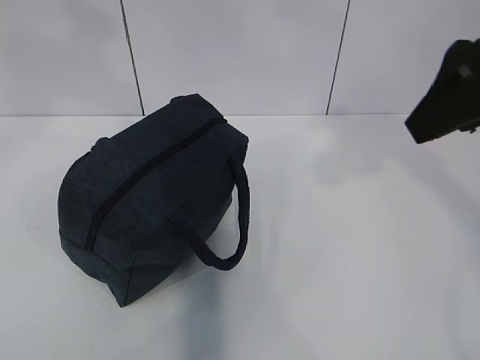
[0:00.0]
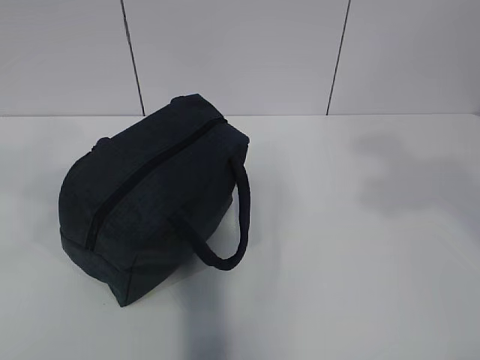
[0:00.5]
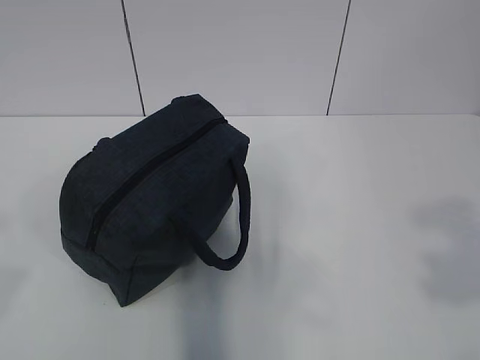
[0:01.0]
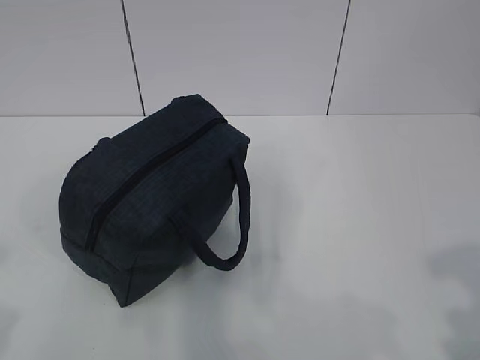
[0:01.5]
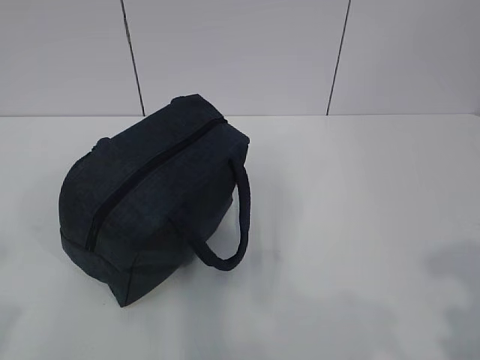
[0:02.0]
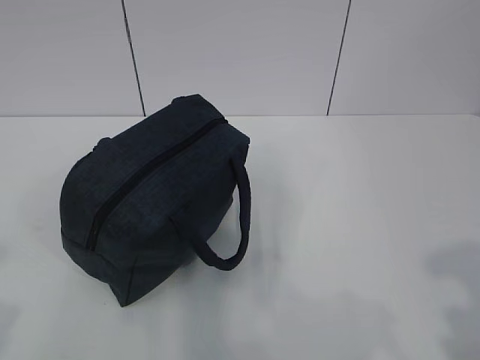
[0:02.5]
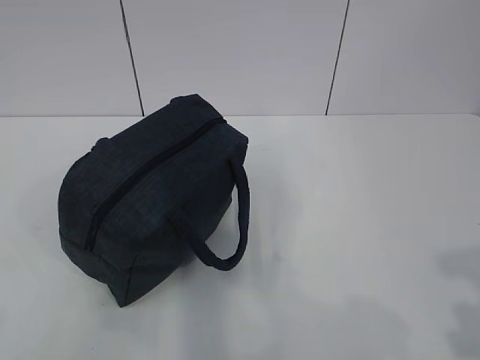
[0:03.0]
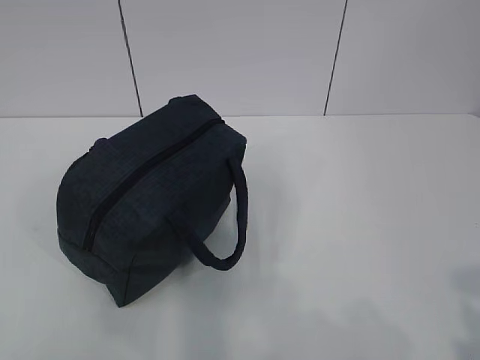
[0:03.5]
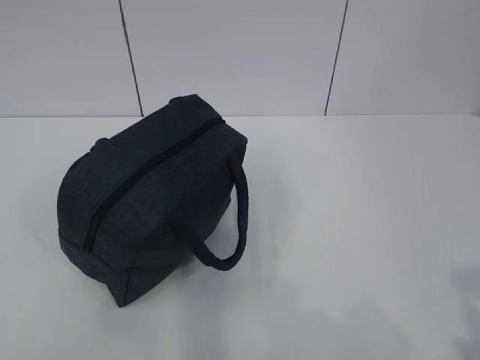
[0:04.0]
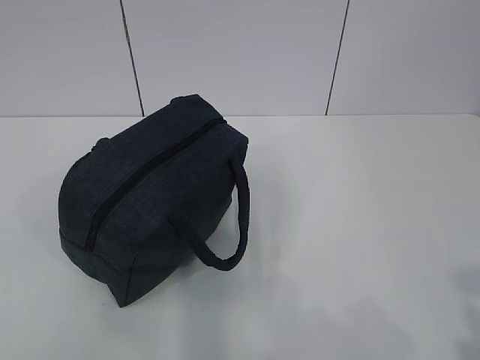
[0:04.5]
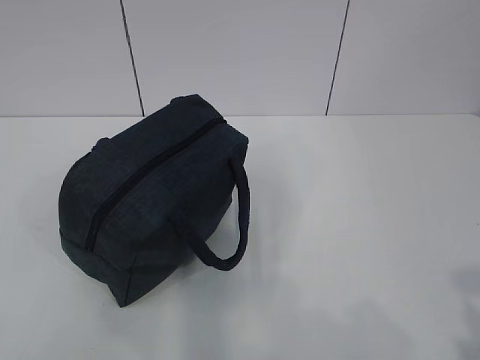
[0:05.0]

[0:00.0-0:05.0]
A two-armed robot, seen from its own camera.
0:00.0 to 0:02.5: Both grippers travel together backward and downward, about 25 cm.

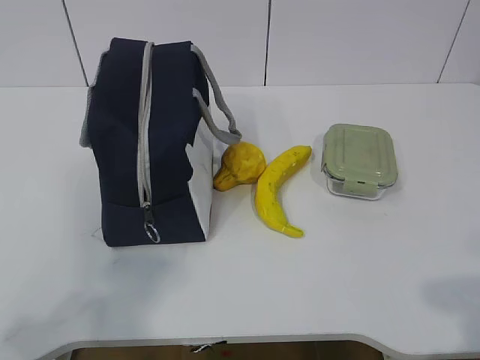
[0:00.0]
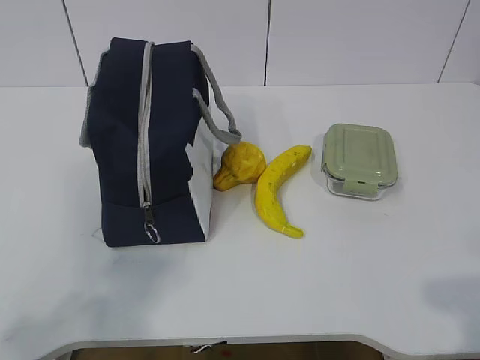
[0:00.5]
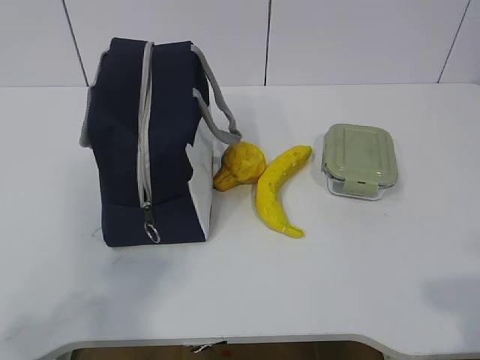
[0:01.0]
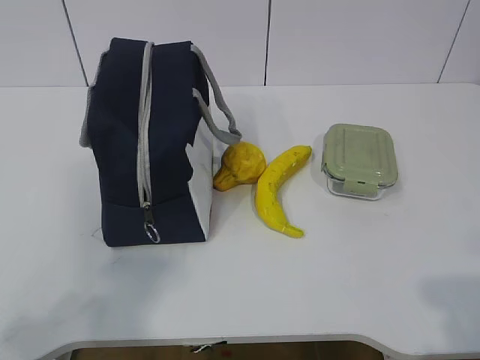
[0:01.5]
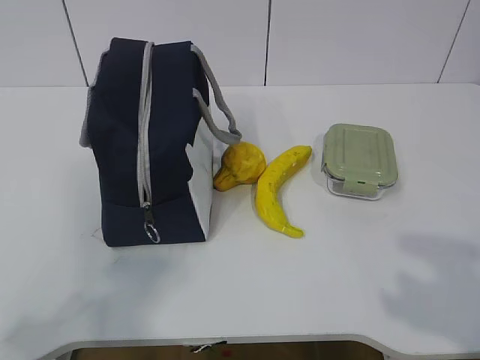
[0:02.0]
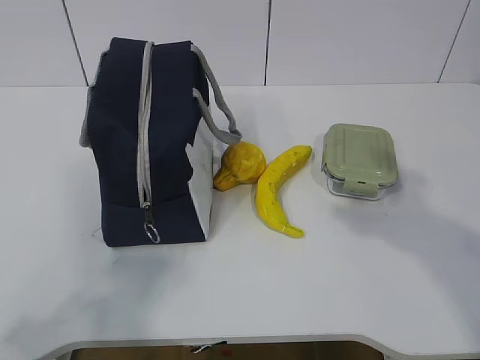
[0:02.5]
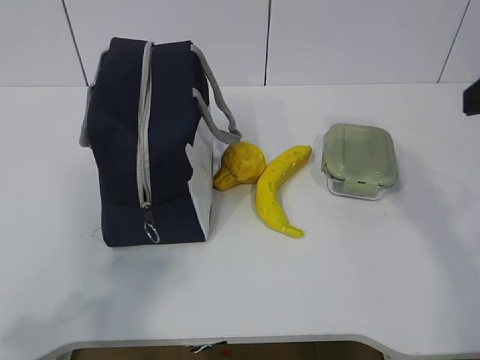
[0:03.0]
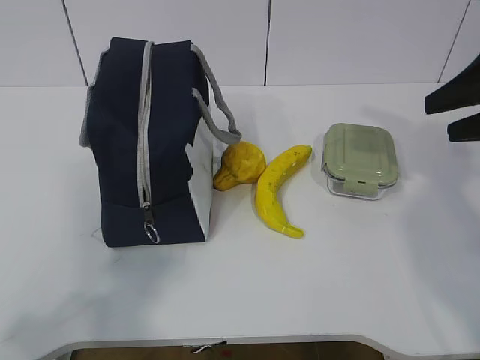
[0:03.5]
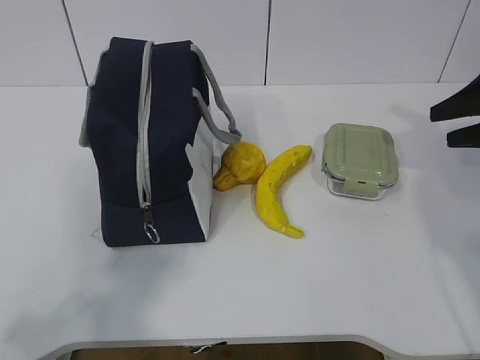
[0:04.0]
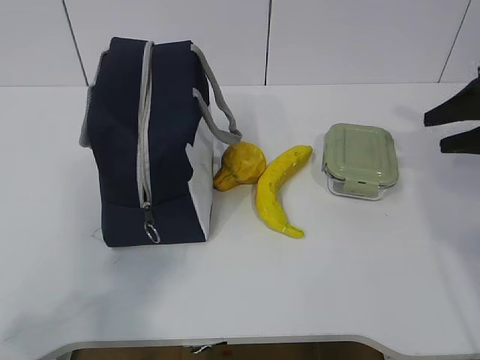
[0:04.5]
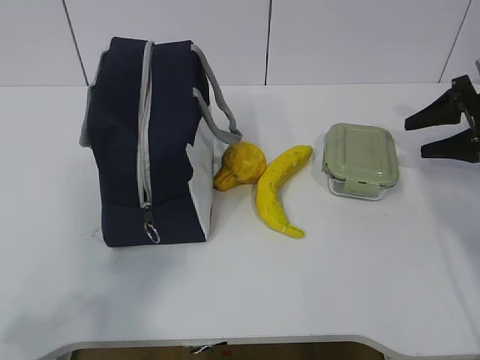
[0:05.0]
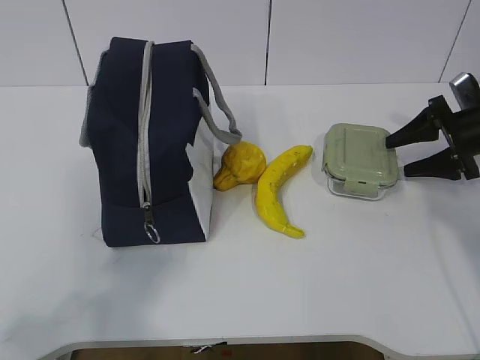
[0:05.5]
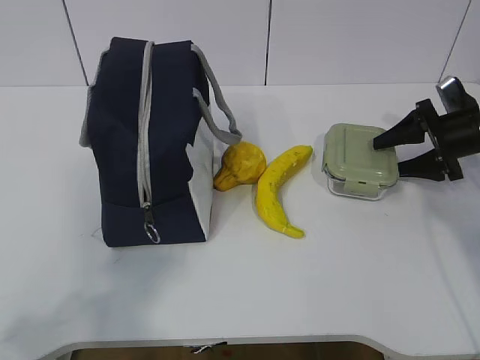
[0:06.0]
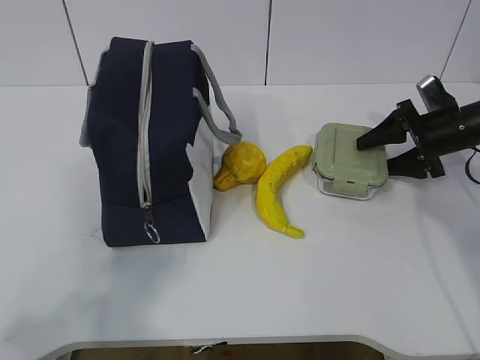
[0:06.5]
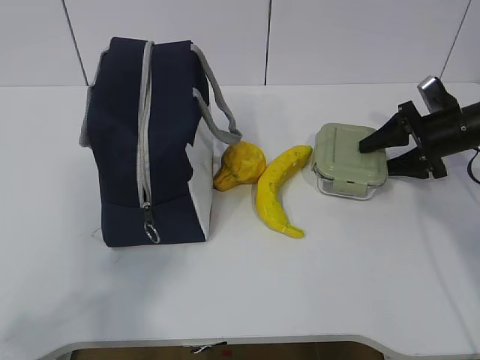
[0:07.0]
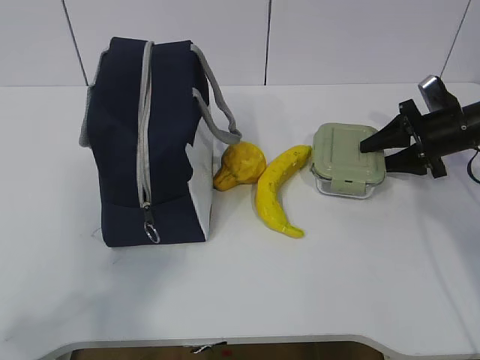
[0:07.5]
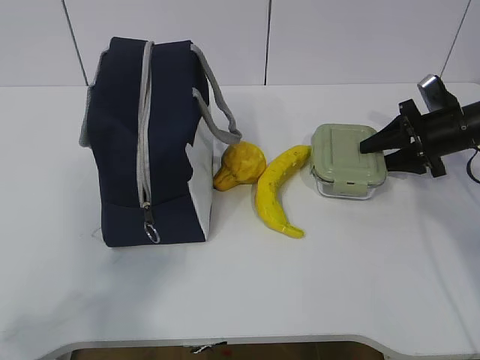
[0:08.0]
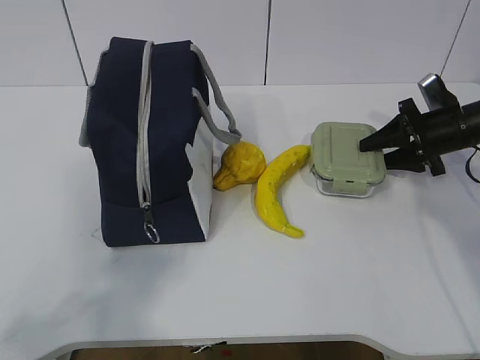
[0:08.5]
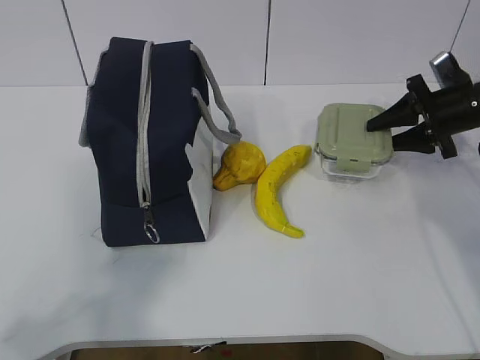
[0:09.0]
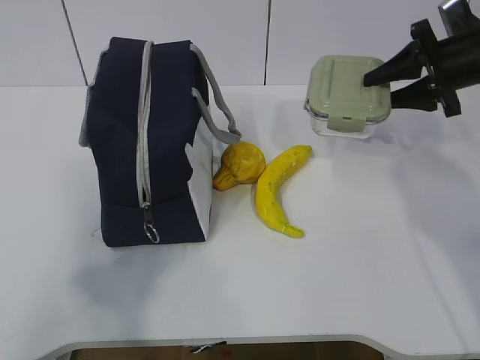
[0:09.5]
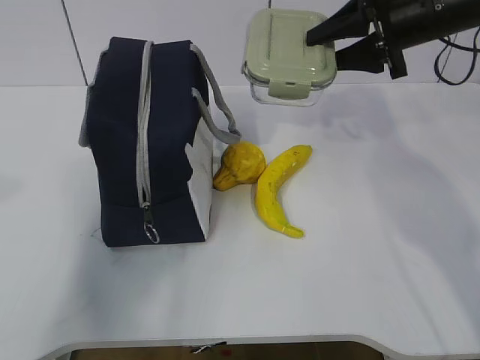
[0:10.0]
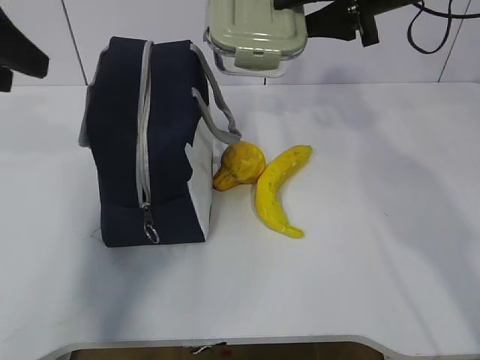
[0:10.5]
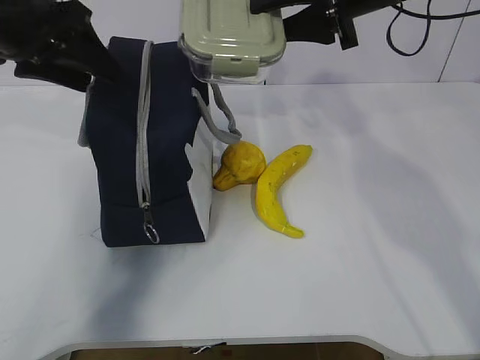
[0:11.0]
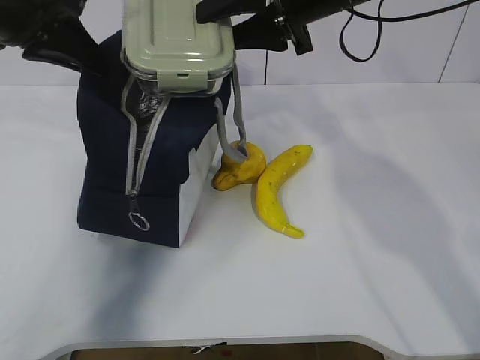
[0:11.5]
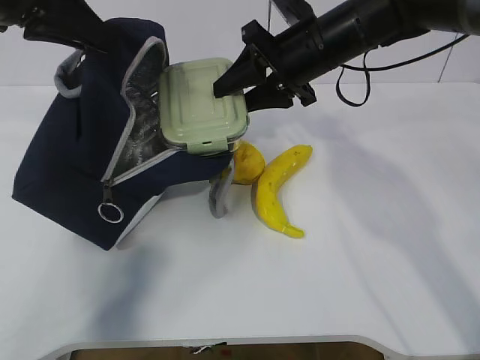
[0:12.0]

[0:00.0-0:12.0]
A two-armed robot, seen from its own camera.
Step, 0:00.0 to 0:07.5: Grasp the box with the right gripper.
0:02.0 to 0:04.0: The right gripper shifts some 35 cm forward.
0:04.0 to 0:06.0: The right gripper heads downward and forward, covering about 10 cm.
0:06.0 to 0:08.0: The grippers move only a little.
0:08.0 to 0:10.0: The right gripper shifts some 20 cm upward and to the left, while the left gripper is displaced forward and upward by some 15 cm, and opens.
0:10.0 to 0:12.0: The left gripper moves forward, some 20 cm, and closes. The right gripper moves to the left, approximately 10 cm.

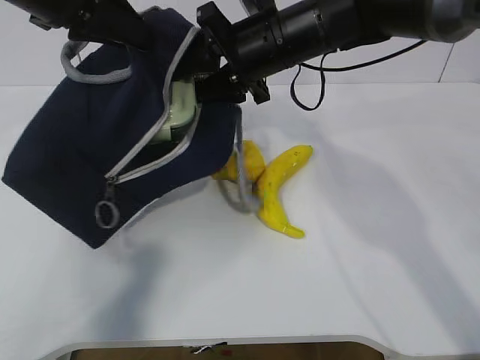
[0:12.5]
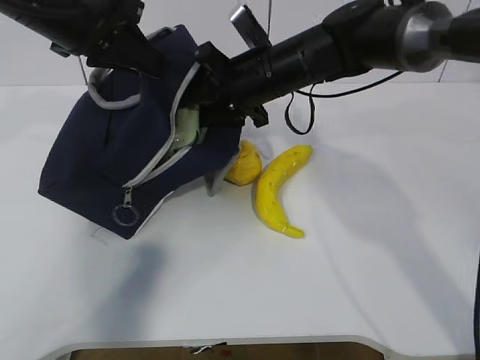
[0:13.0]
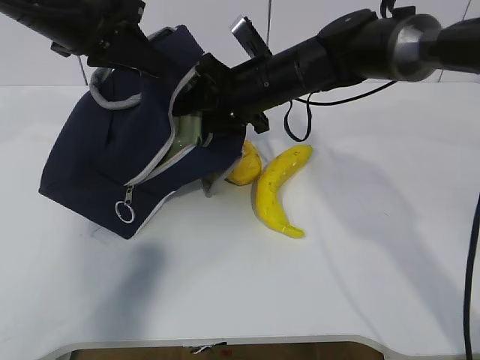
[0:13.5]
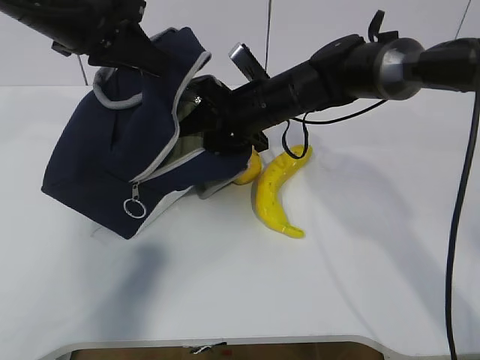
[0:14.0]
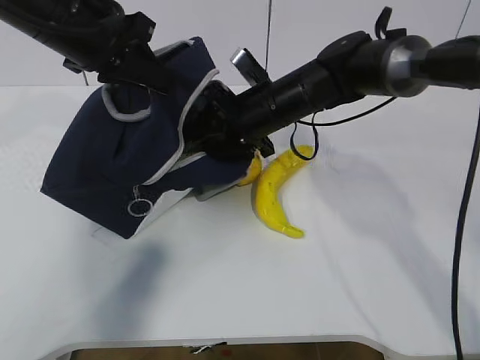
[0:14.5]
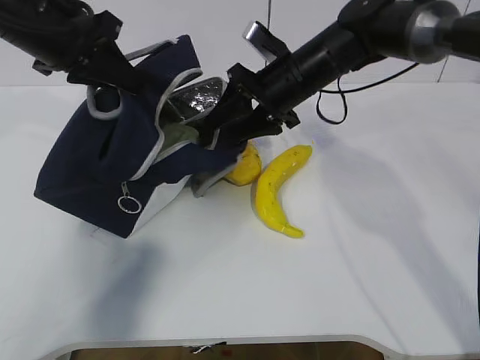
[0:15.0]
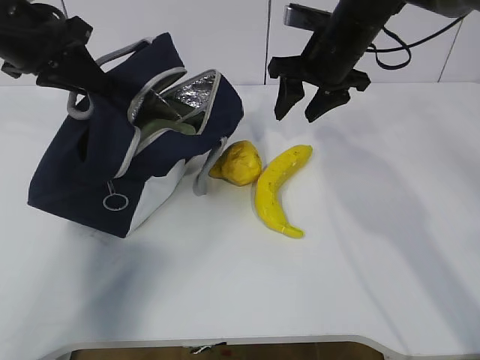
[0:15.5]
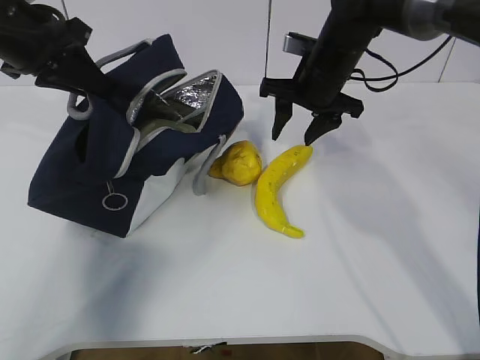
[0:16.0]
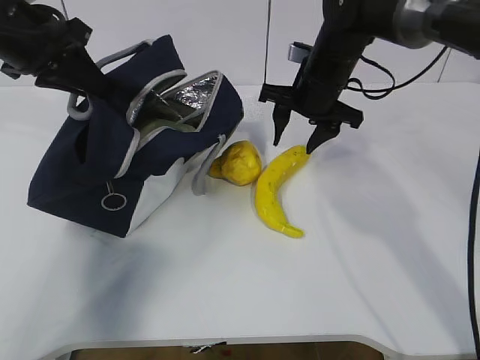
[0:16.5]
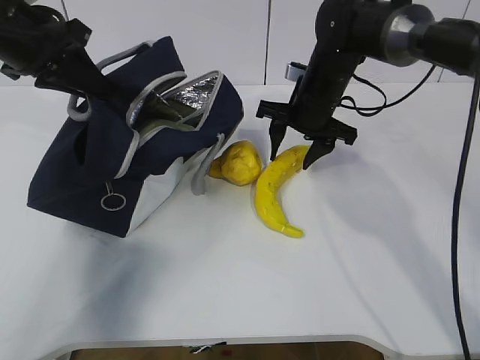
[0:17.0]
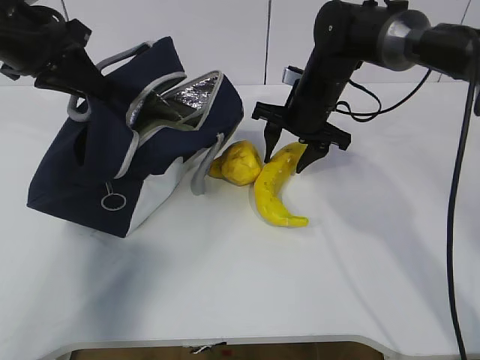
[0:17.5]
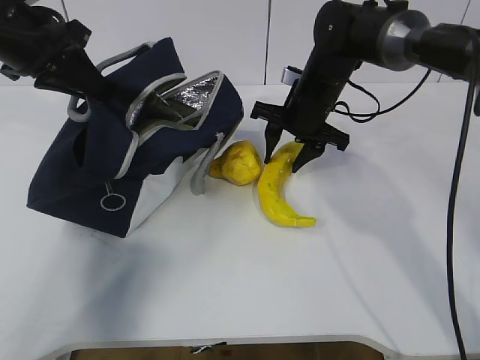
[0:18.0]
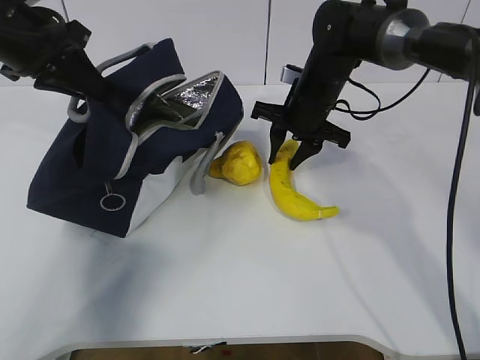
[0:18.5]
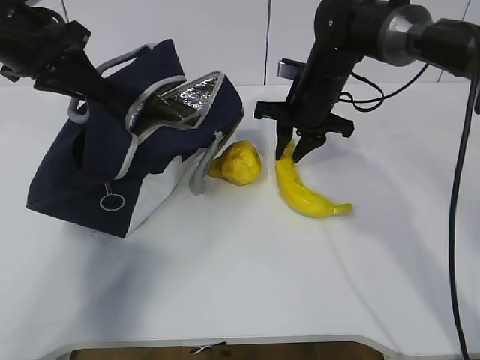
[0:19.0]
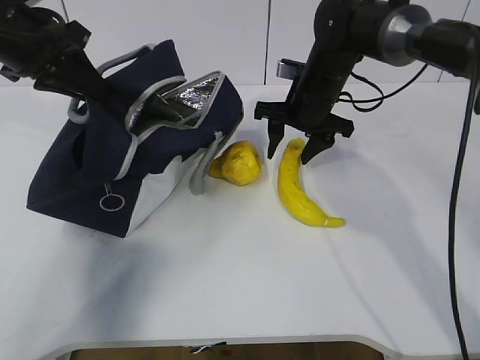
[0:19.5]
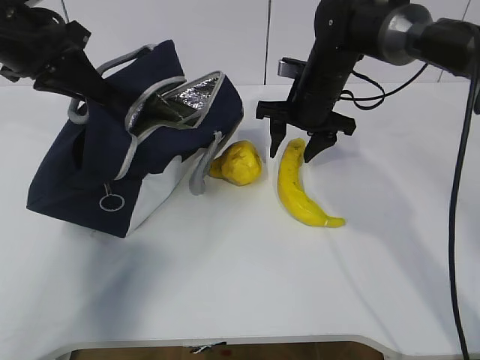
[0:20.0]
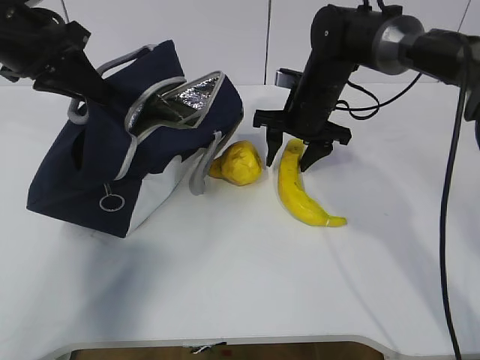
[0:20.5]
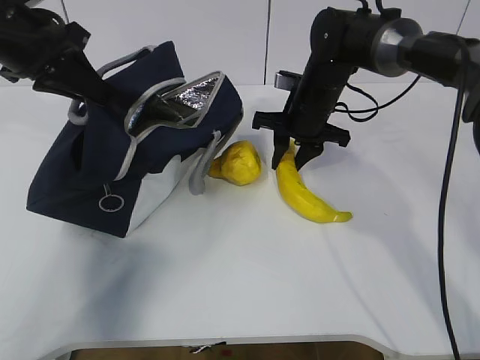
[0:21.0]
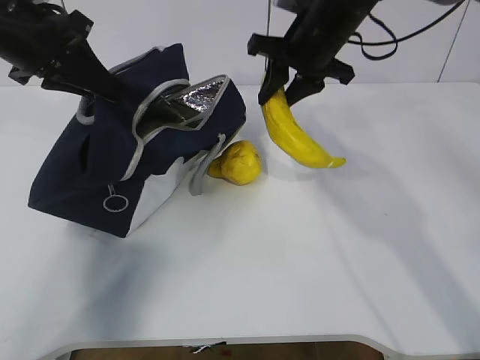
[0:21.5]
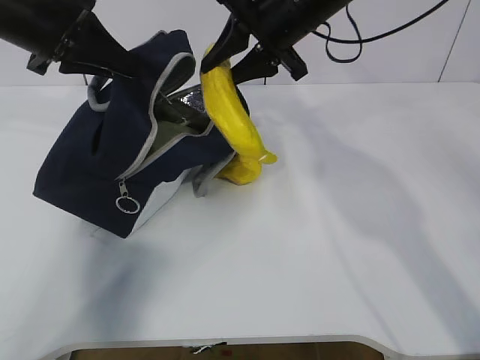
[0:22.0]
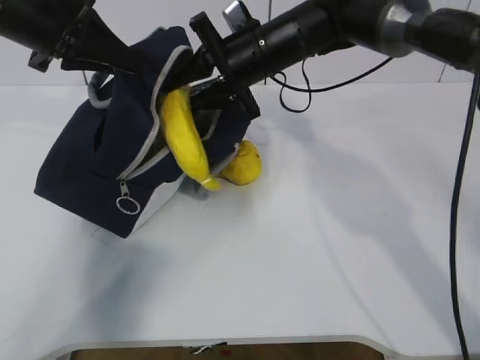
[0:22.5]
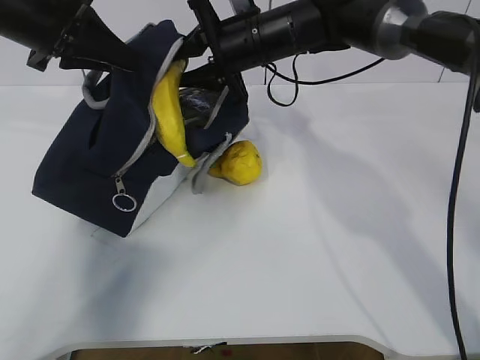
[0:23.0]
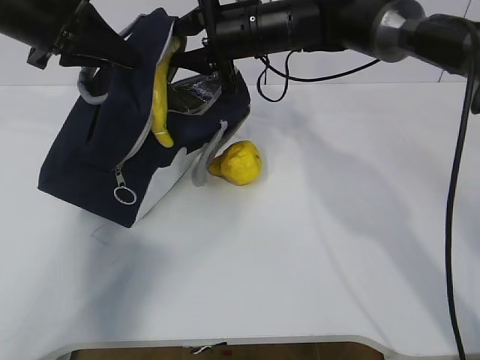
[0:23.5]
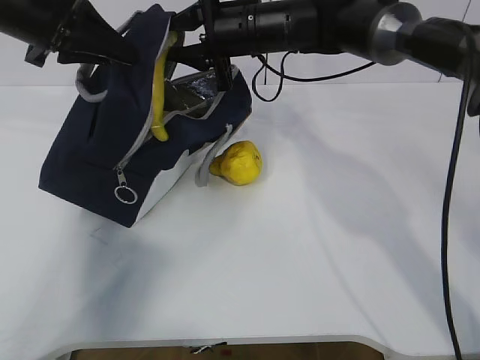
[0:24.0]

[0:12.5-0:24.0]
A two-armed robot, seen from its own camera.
Step, 0:12.5 to 0:15.0: Place the box into the package with the right gripper.
Step, 0:15.5 to 0:20.5: Grasp the banana with the right gripper.
0:12.5 to 0:14.5: The left gripper moves downward, about 5 cm. Meanwhile the right gripper goes roughly 10 cm downward.
0:14.5 to 0:16.5: The right gripper shifts about 5 cm to the right. Meanwhile the left gripper is displaced to the left by some 5 cm.
0:16.5 to 0:20.0: There are only small adjustments of the grippers.
0:20.0 to 0:22.0: The right gripper is displaced upward by approximately 10 cm, and closes up.
0:22.0 to 0:24.0: The right gripper moves about 5 cm.
